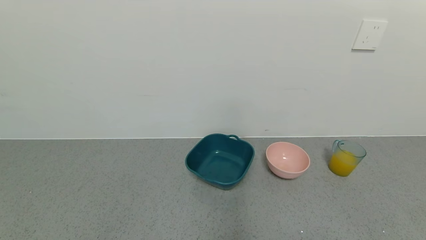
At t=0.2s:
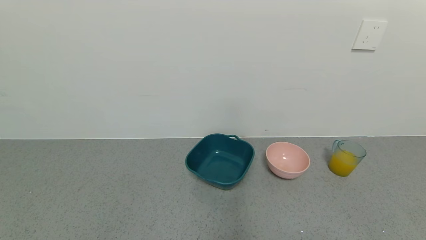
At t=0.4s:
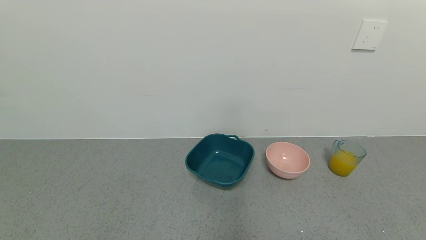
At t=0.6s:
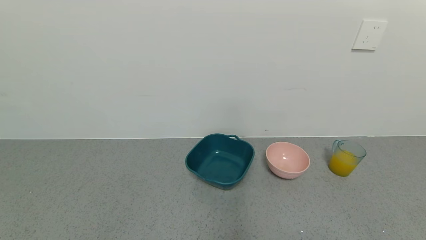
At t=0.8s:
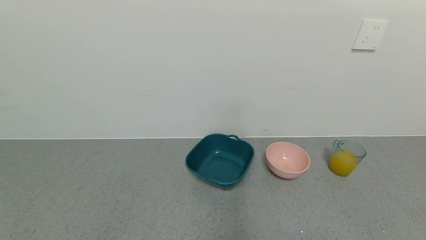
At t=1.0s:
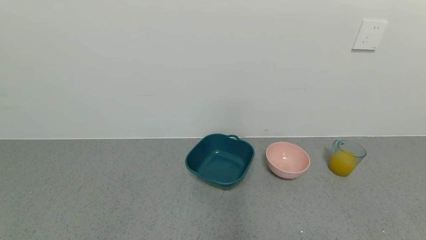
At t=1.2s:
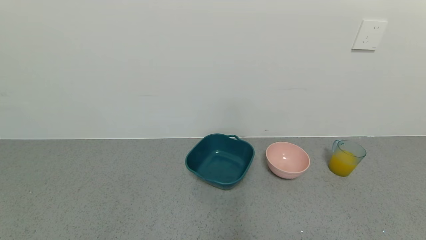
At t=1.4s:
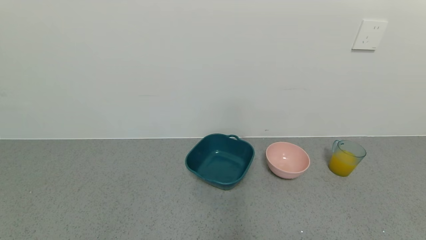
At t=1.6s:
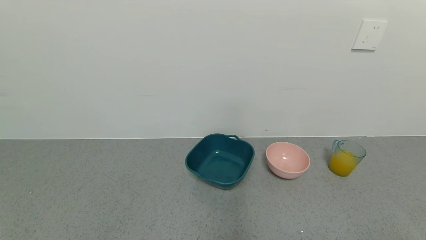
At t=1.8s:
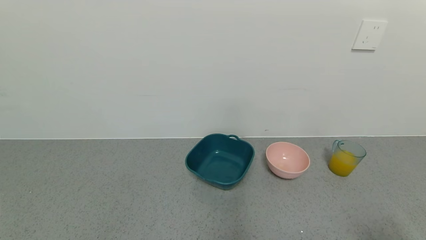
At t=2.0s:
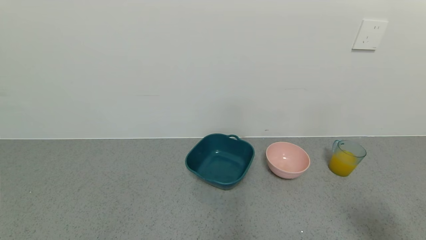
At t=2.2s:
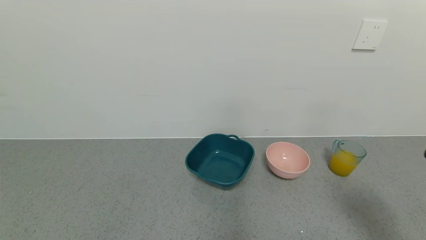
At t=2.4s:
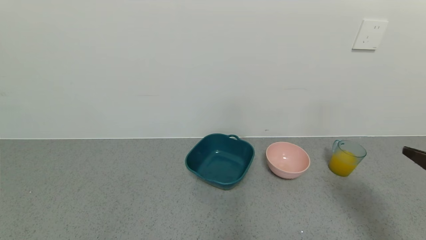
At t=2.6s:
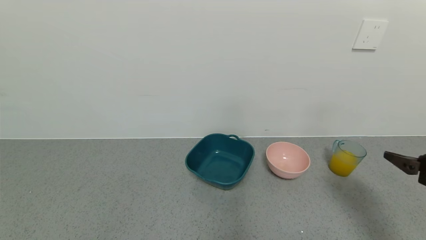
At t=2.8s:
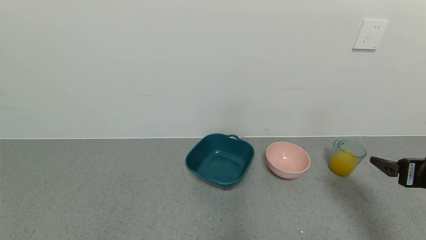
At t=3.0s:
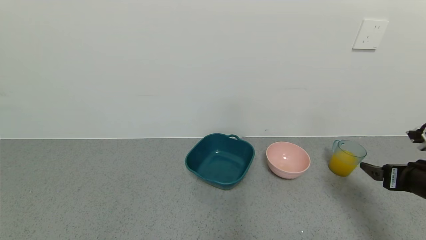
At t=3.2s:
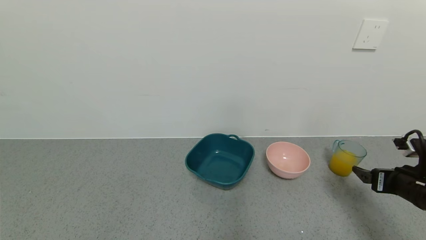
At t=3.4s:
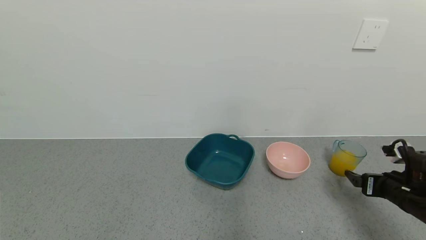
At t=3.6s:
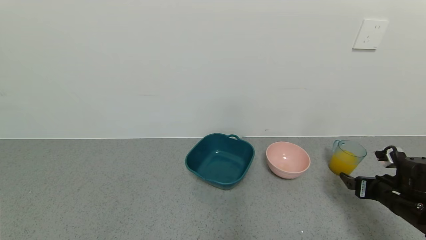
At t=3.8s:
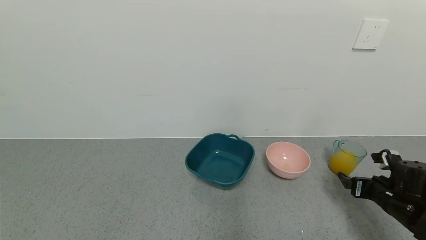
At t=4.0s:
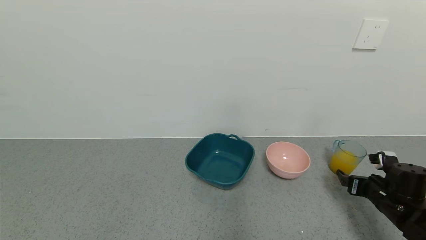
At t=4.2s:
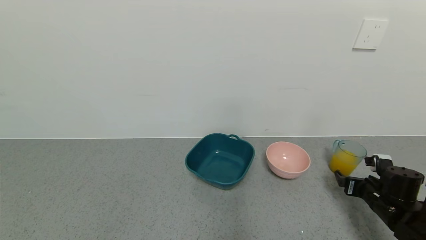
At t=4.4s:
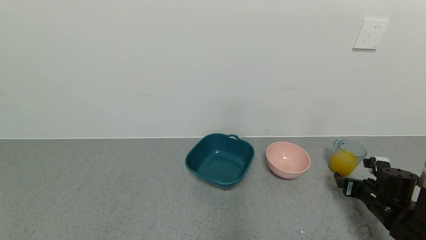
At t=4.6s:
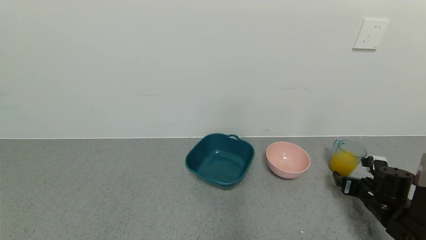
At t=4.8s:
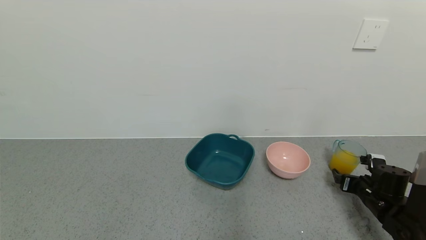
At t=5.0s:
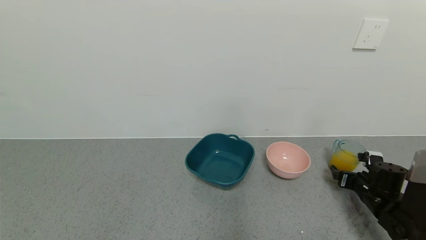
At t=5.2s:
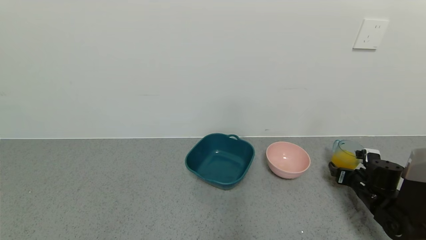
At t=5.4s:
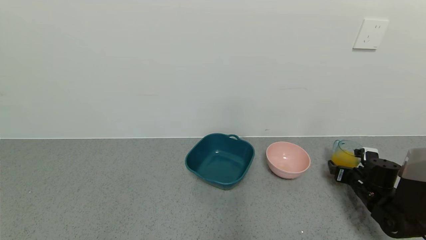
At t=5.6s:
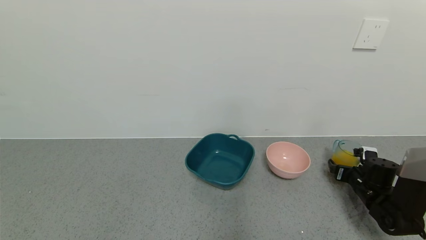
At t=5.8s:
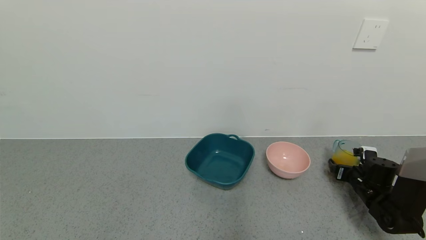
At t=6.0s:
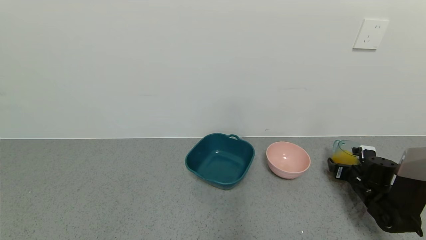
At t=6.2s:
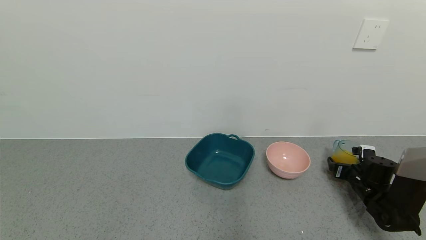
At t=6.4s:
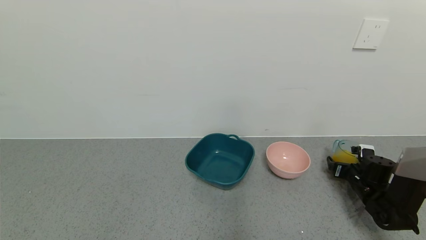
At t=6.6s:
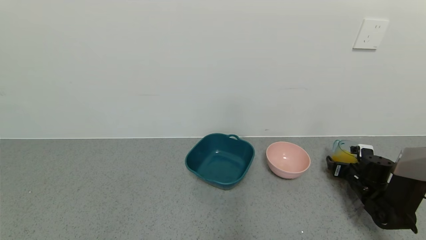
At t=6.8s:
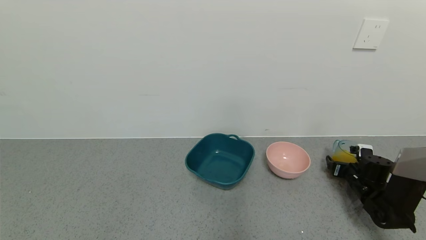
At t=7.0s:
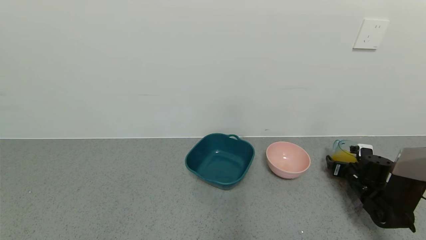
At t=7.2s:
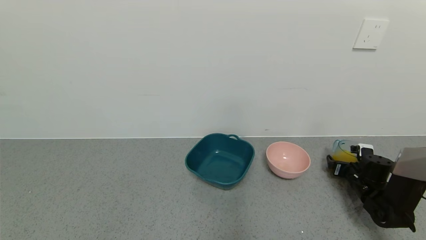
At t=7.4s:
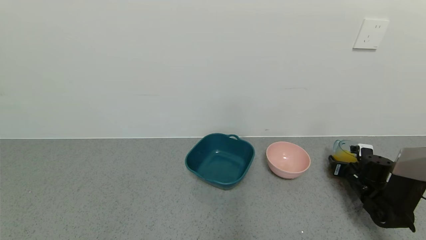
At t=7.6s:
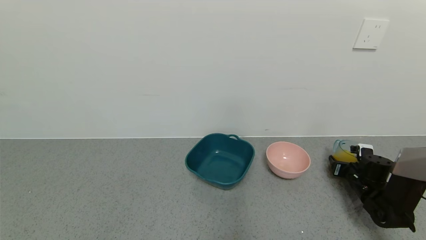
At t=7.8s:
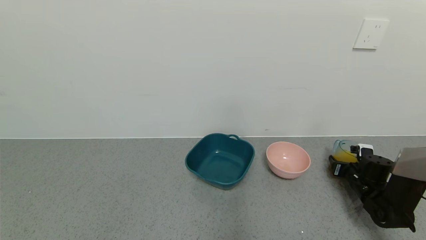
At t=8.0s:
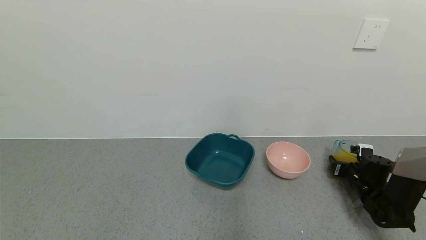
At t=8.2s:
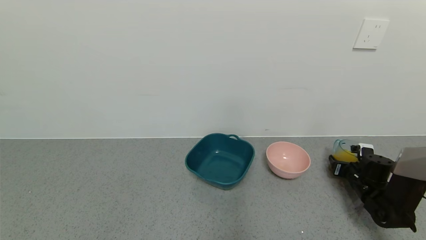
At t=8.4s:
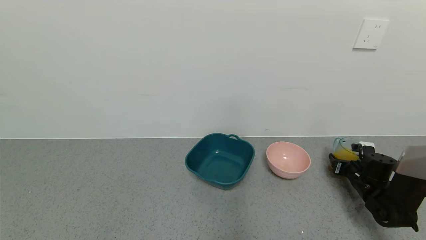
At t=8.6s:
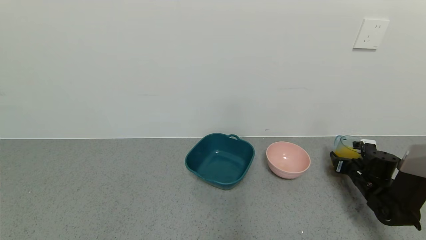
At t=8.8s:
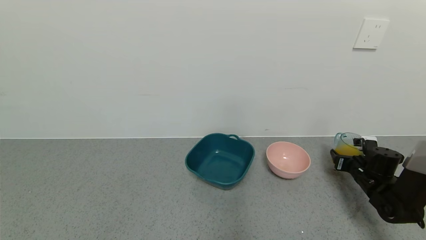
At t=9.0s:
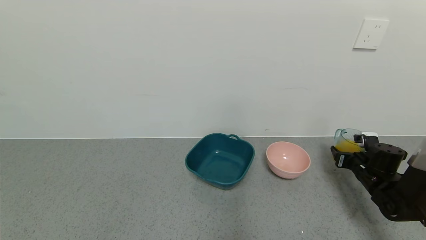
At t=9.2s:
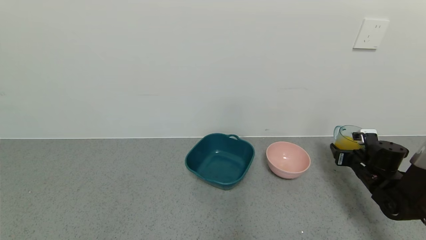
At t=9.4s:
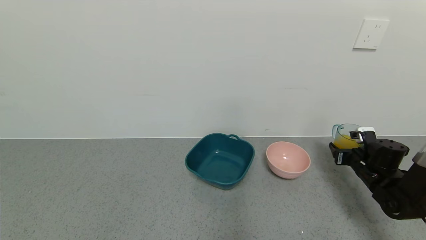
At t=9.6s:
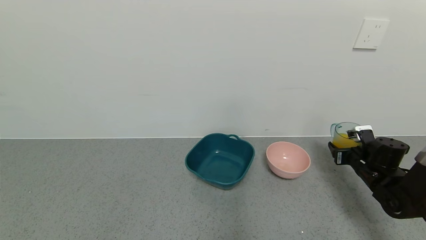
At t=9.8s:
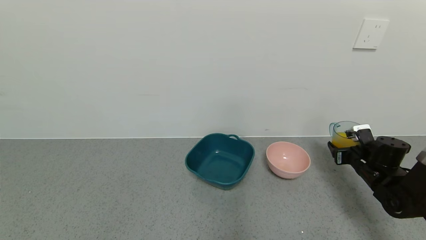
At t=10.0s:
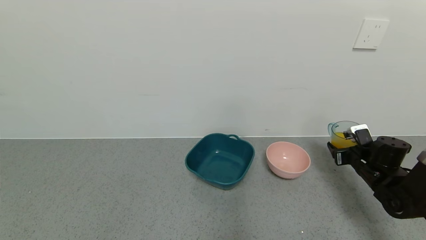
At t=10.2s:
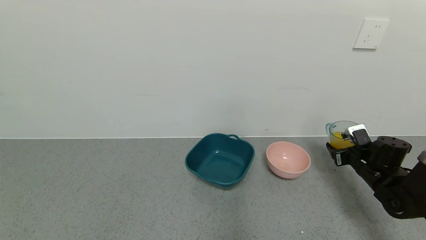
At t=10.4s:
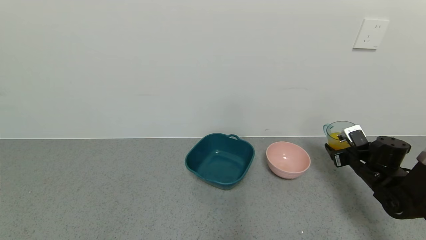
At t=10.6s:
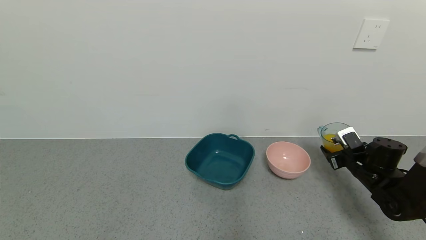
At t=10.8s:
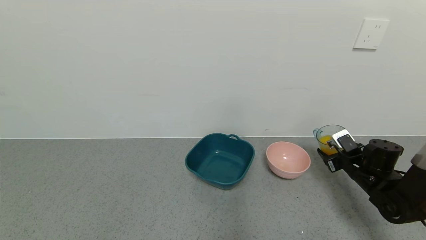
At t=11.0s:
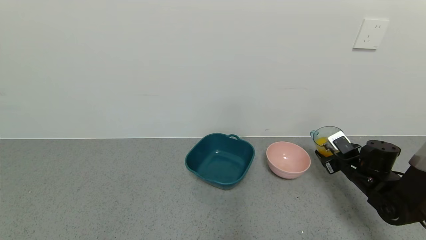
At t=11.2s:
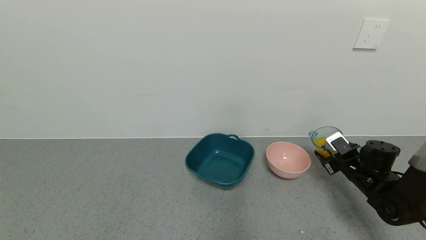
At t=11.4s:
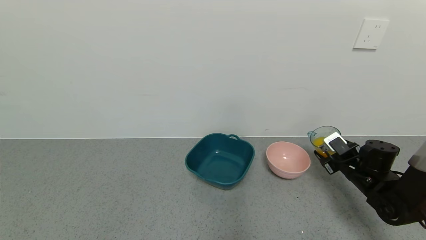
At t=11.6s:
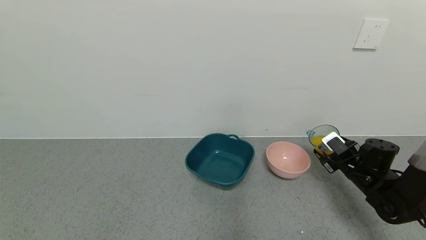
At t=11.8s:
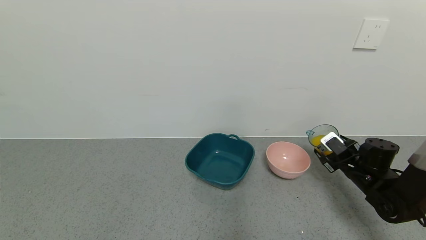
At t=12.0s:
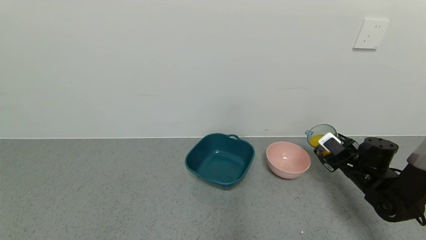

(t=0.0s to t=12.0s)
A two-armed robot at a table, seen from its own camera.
Task of the whole recording: use a gripper to pick up the cup and pour the liquid into a bowl or tray.
Step, t=0.0s - t=8.0s: Grasp the glass of orange juice with the right gripper.
t=1.6s - t=3.0s: The right gripper heads forward, covering approximately 20 cm.
t=3.0s - t=4.4s: The right gripper heads downward and forward, covering roughly 15 cm.
t=4.4s - t=6.0s: The right gripper travels forward by roughly 5 cm.
t=6.0s - t=7.6s: The right gripper closes.
t=7.6s - t=9.0s: There are only small adjustments of the grippers.

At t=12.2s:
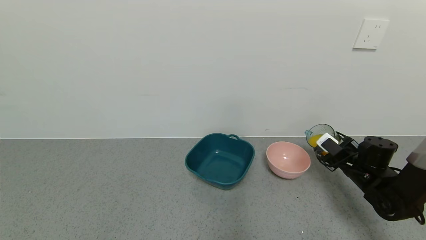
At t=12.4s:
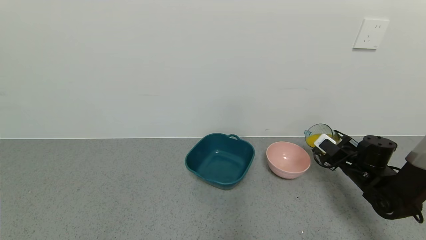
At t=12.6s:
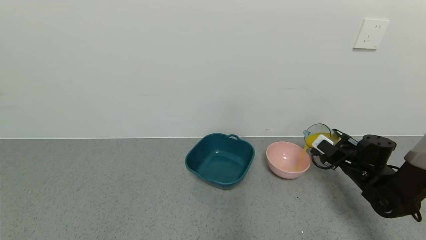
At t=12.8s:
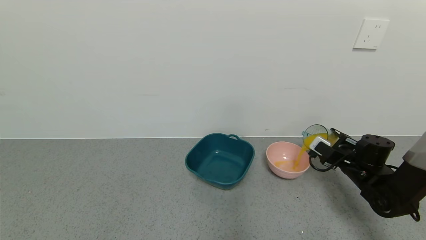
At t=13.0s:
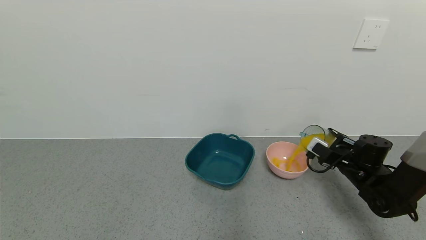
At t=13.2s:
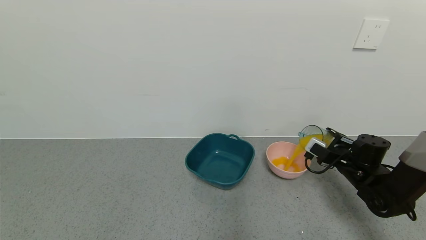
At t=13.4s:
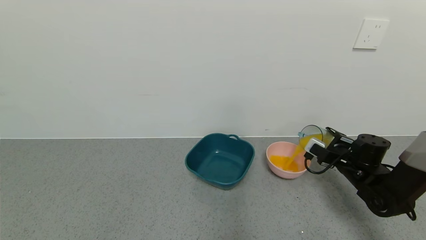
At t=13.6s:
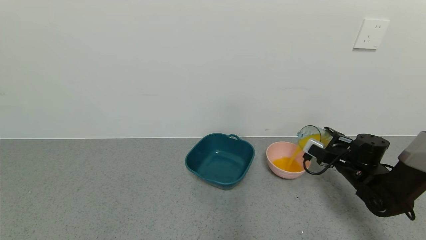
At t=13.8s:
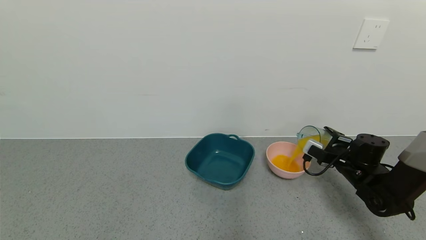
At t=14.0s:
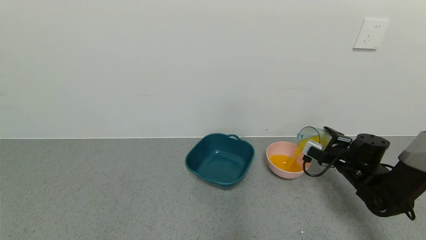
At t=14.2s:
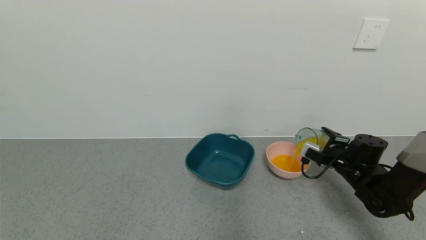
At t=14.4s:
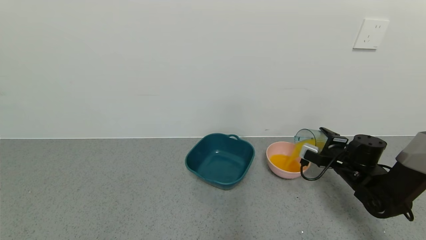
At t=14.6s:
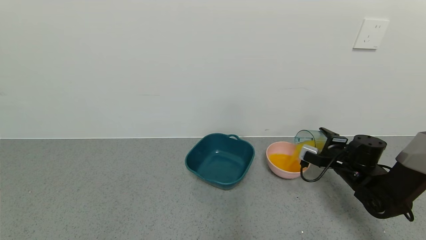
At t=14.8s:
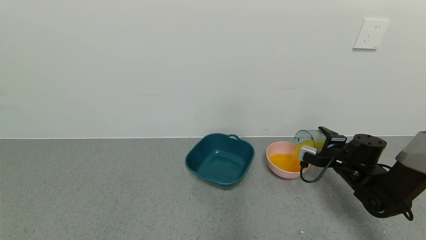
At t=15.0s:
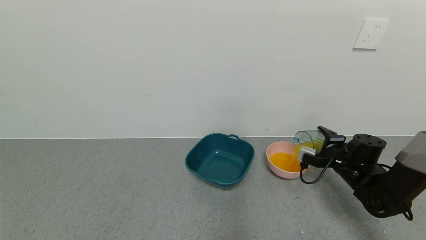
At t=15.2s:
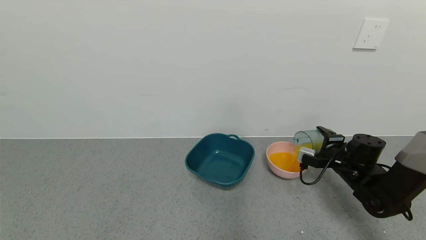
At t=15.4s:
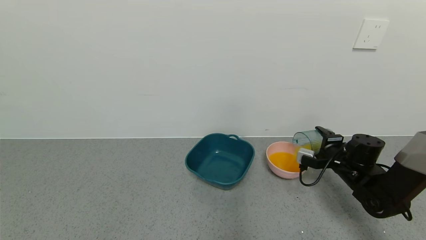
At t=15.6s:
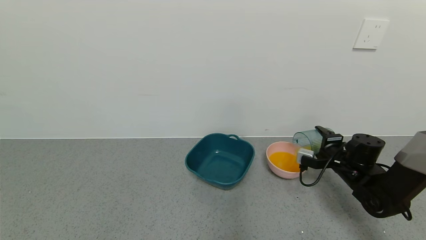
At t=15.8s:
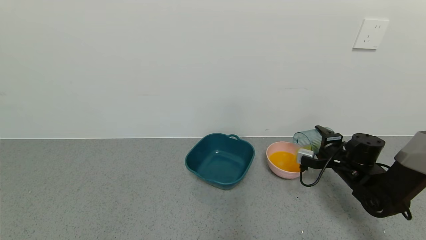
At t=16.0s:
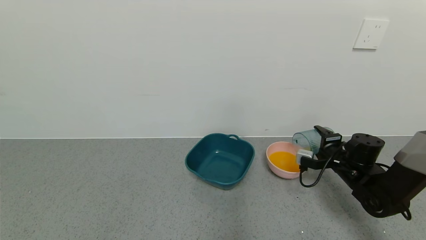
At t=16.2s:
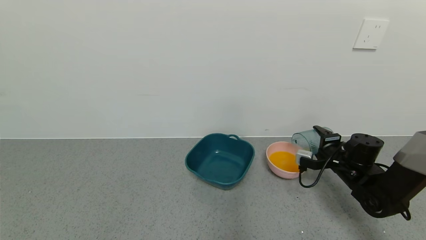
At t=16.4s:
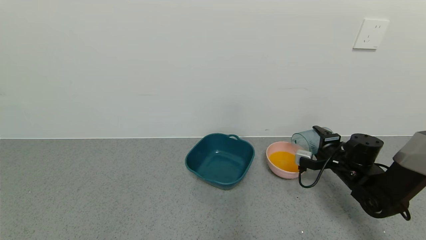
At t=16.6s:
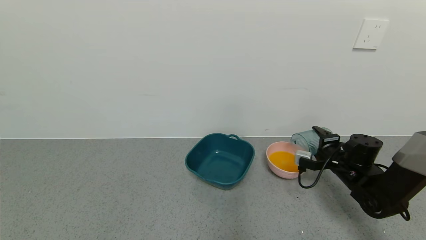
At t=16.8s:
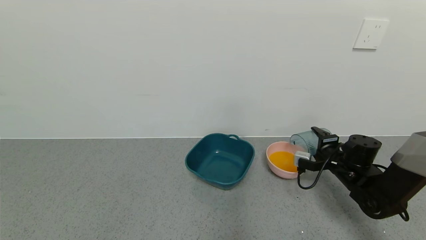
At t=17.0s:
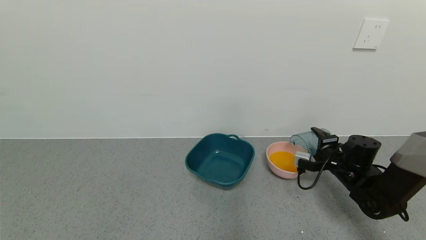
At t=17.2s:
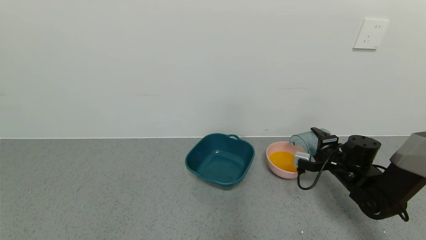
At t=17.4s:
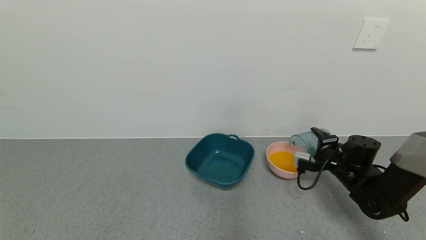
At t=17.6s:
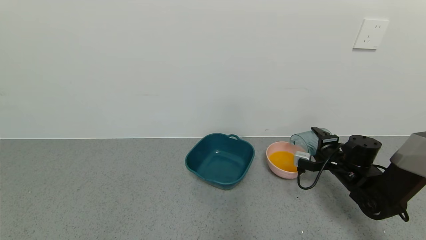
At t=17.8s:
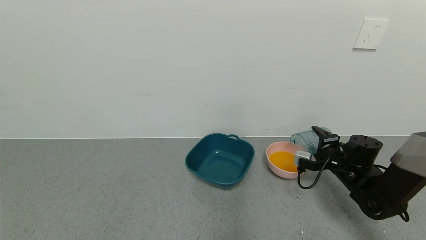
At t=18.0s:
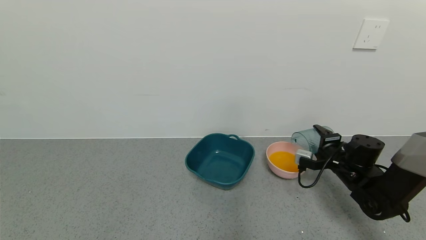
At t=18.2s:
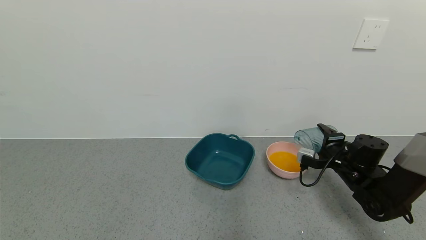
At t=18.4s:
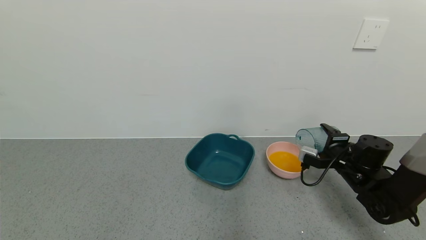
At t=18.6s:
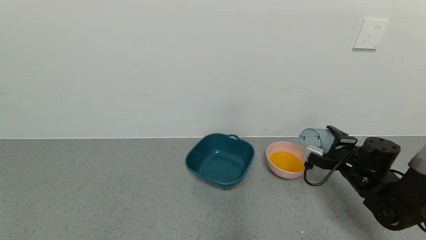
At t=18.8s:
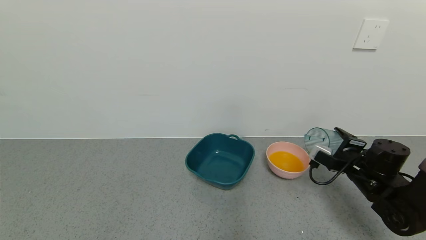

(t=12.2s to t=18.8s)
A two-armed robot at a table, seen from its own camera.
Task of the whole recording: use a gripper to pick up the cup and pour the liquid into a bowl or tray.
Step, t=12.2s - t=18.4s: Pour the orange juice into the pink bowl with the right gripper.
t=13.8s - t=15.4s: The grippers make only small movements.
t=15.4s - t=17.2s: The grippers make only small movements.
